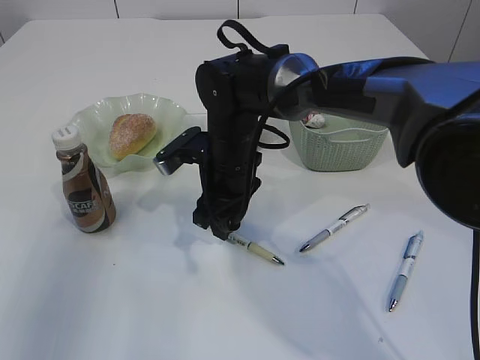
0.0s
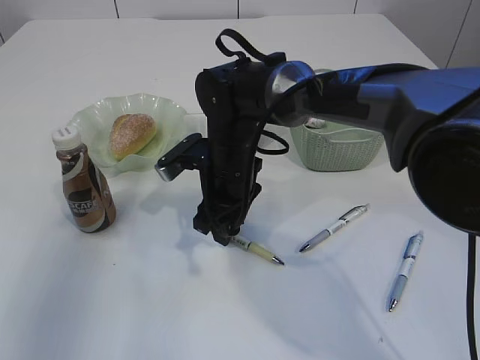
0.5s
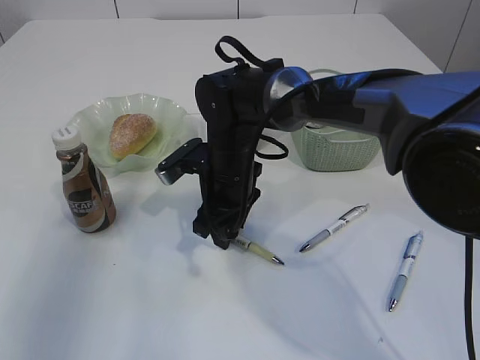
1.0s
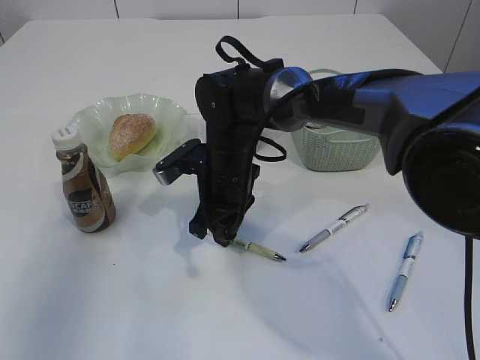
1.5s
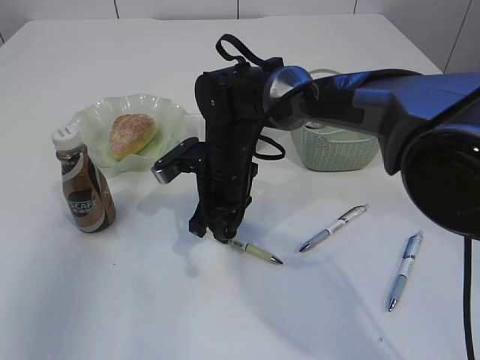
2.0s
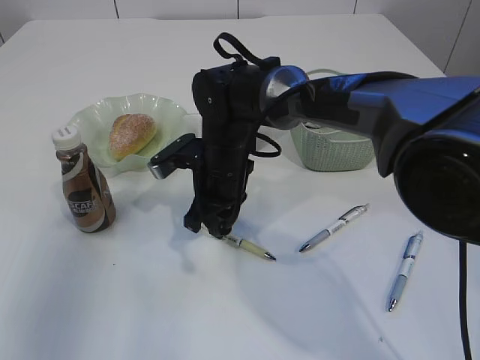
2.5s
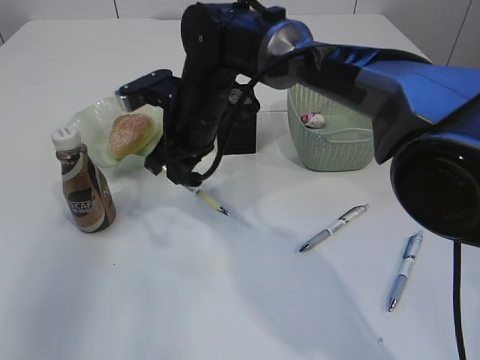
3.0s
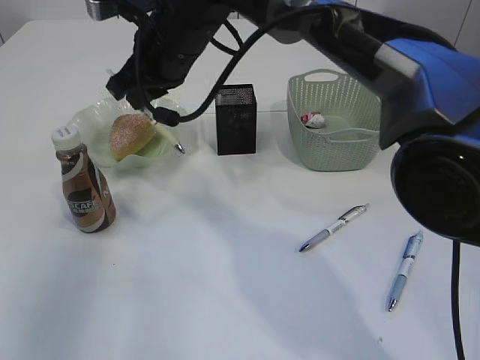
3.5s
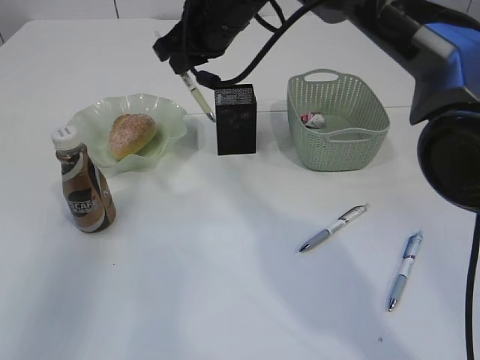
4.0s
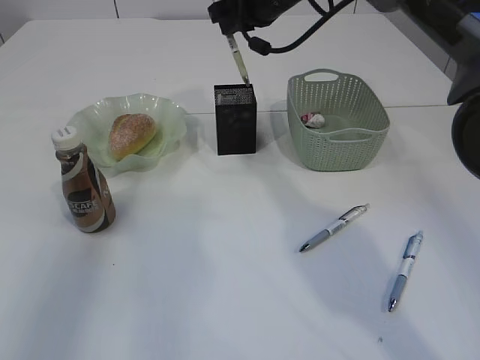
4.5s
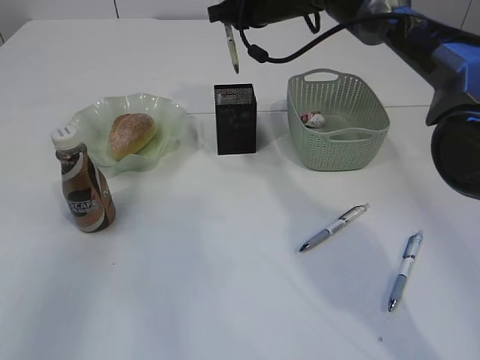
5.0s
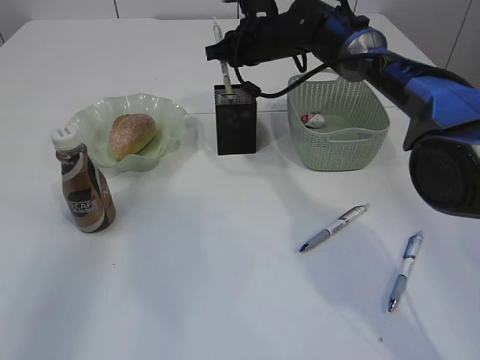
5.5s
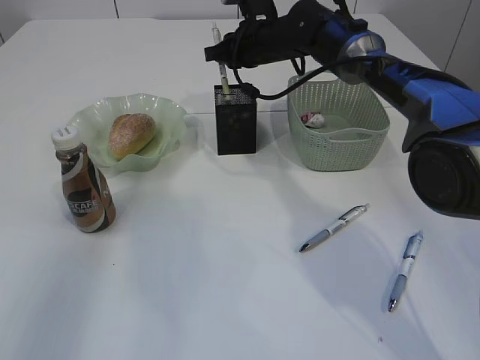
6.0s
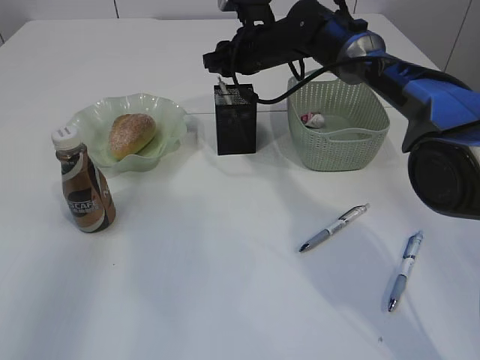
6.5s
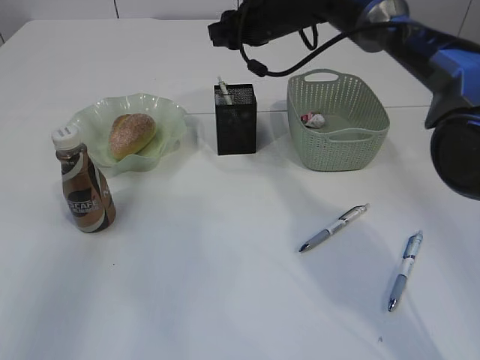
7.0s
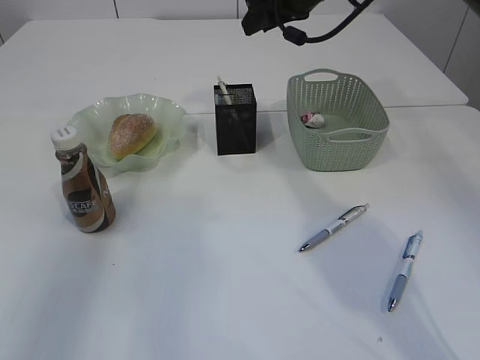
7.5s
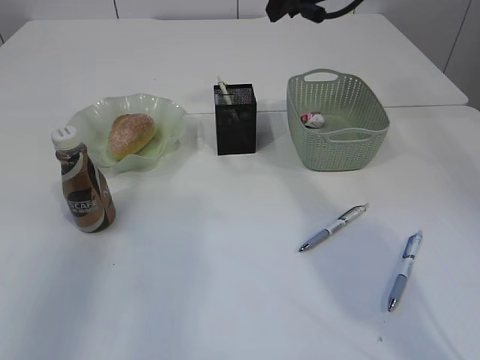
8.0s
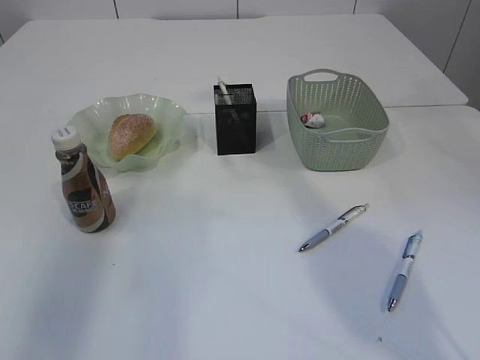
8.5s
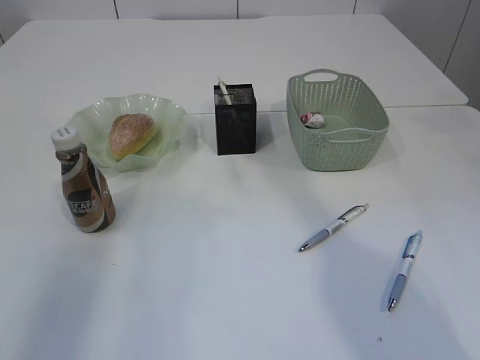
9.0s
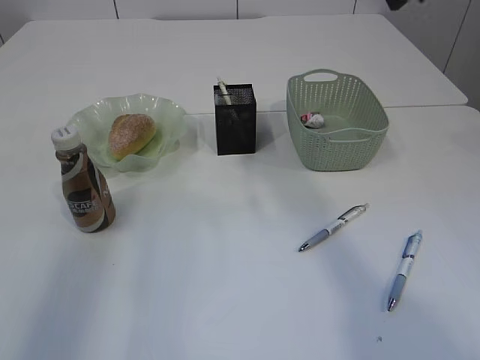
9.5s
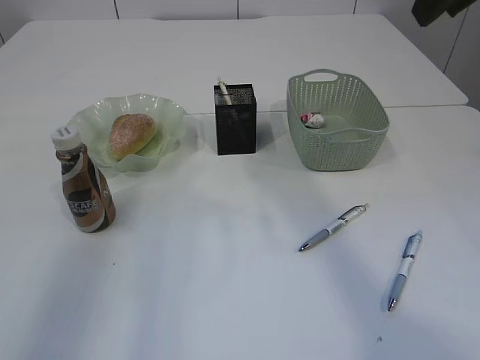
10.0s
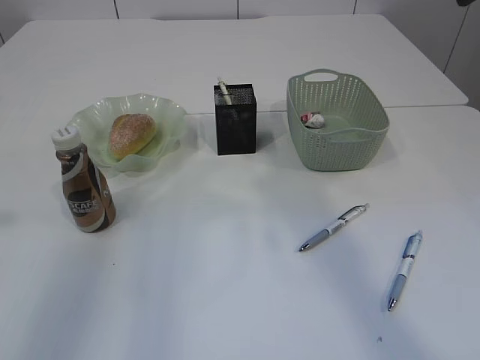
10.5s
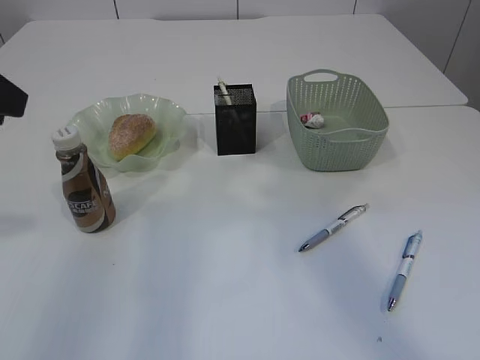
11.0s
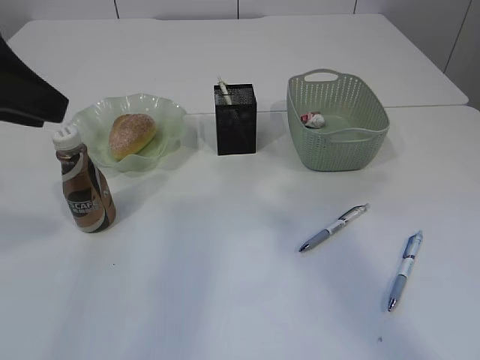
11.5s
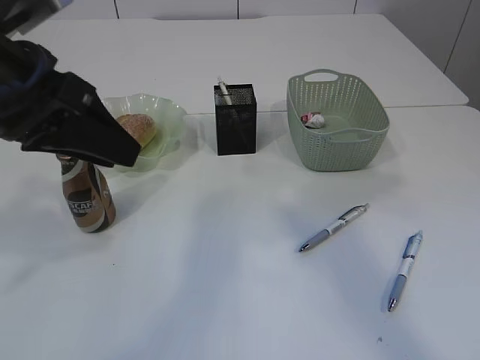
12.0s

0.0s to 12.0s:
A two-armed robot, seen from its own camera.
Step, 0.0s to 3.0s: Pick up the pen with right arm.
Step, 3.5s to 6.5s: Place the pen into the pen holder.
0.0s to 2.0s: The right gripper closes its fingers.
2.0s to 4.0s: The right gripper heads upward and forward, covering approximately 20 cm.
4.0s to 6.0s: The right gripper moves forward, downward and to the right, roughly 15 cm.
6.0s to 8.0s: The right gripper shifts approximately 15 cm upward, backward and to the right, and opens up.
8.0s to 10.0s: The right gripper travels backward and to the right by some 20 cm.
10.0s to 12.0s: The right gripper is displaced backward and to the right by about 10 cm. The left gripper shifts roughly 10 cm to the right.

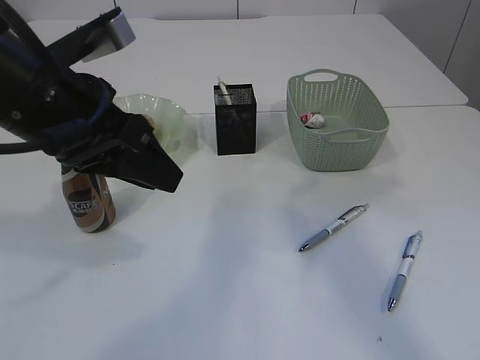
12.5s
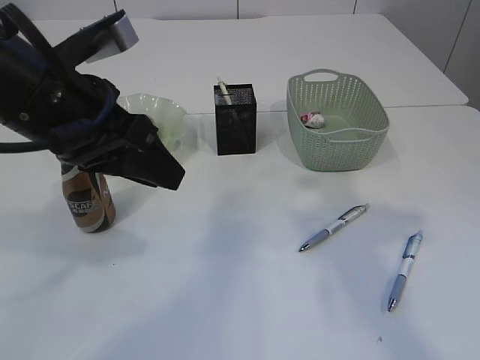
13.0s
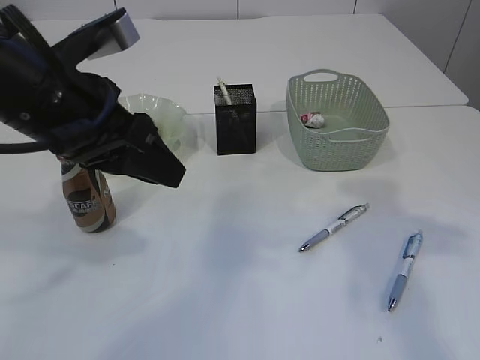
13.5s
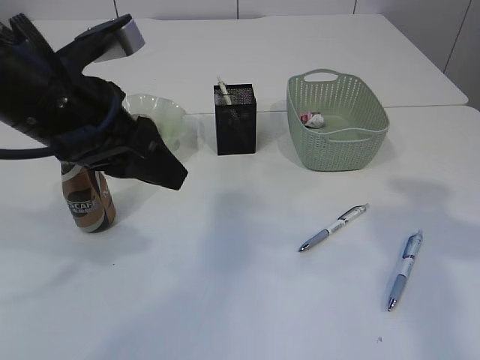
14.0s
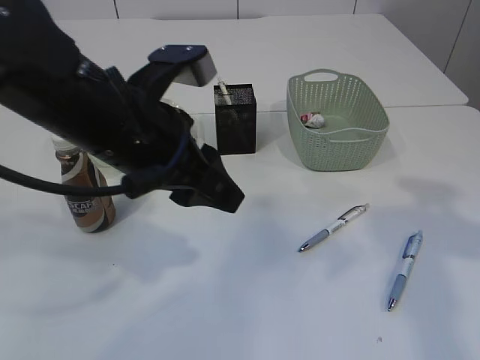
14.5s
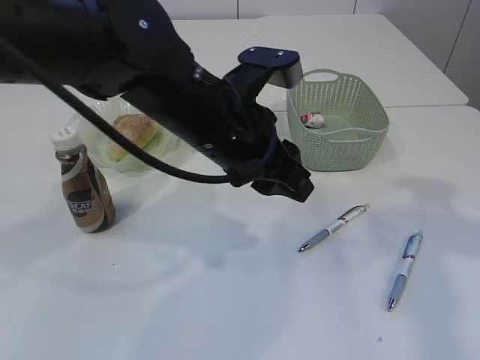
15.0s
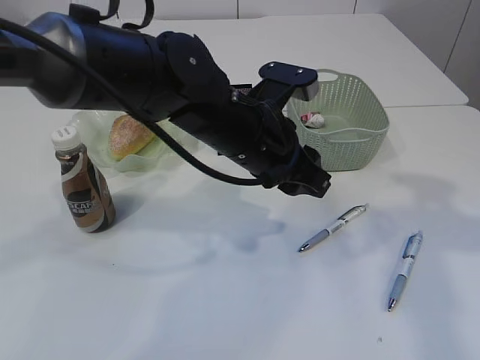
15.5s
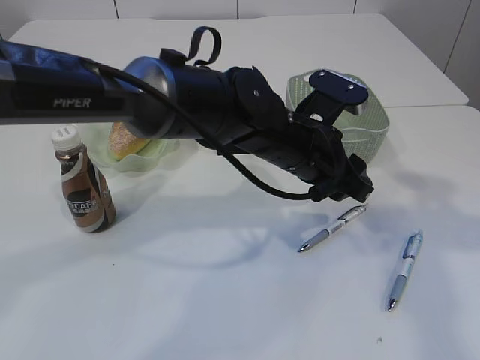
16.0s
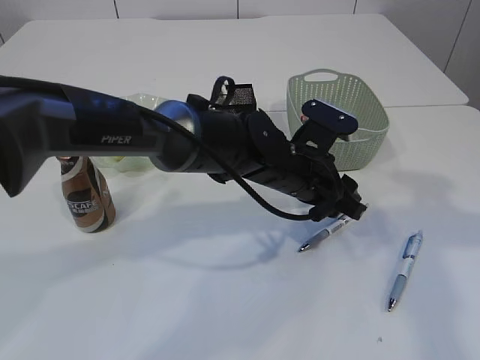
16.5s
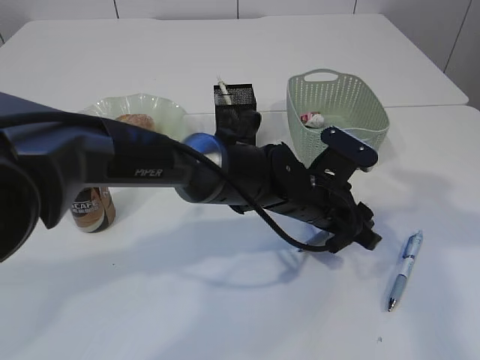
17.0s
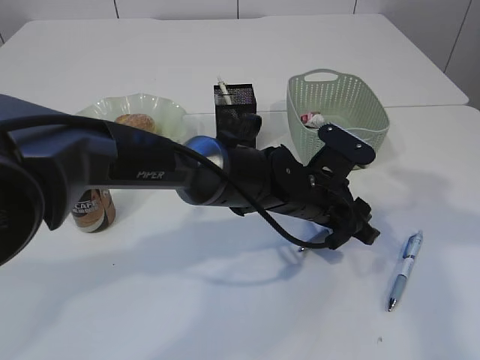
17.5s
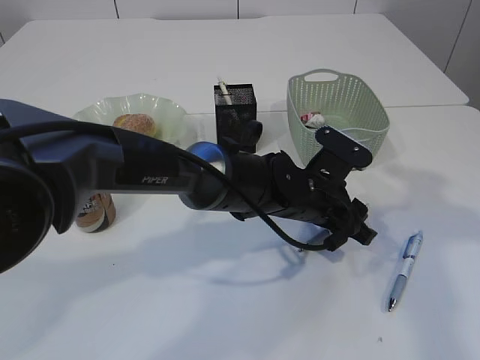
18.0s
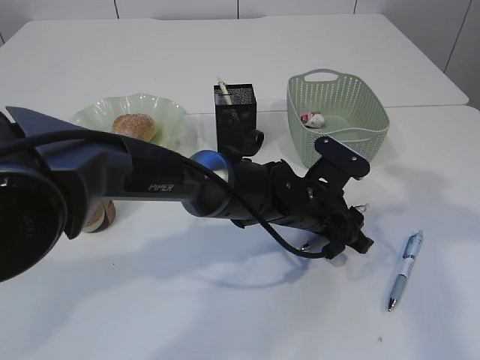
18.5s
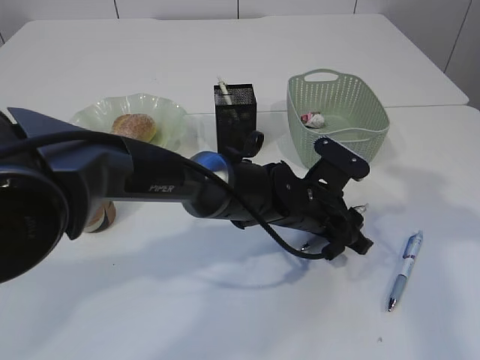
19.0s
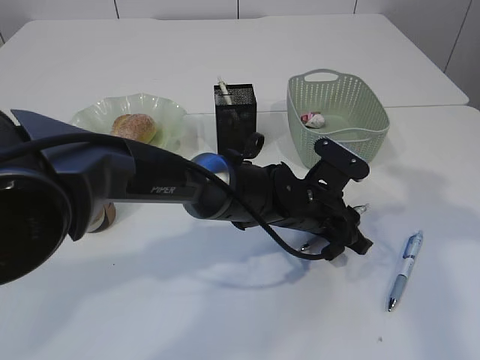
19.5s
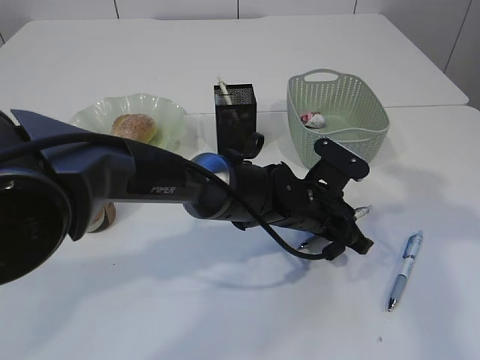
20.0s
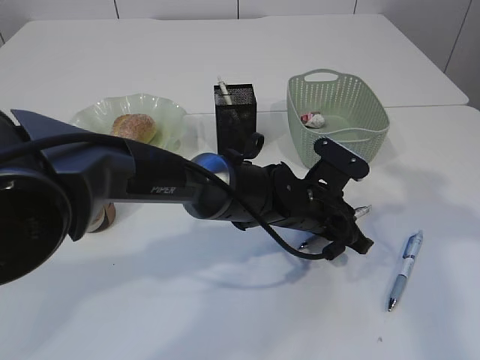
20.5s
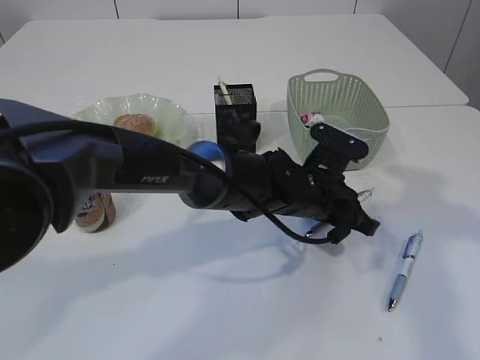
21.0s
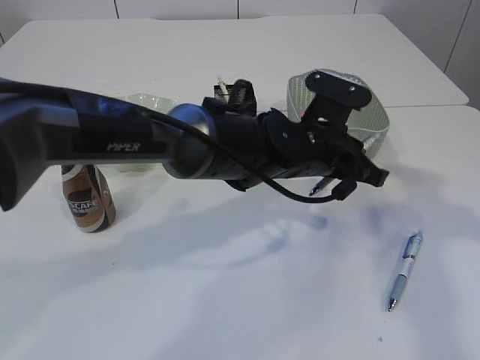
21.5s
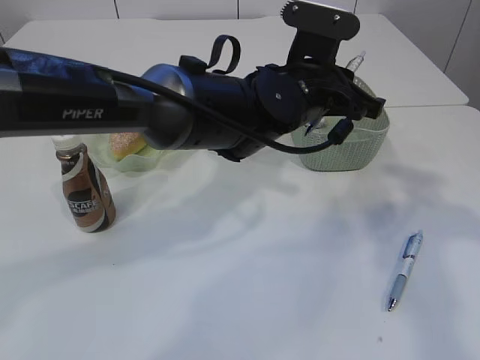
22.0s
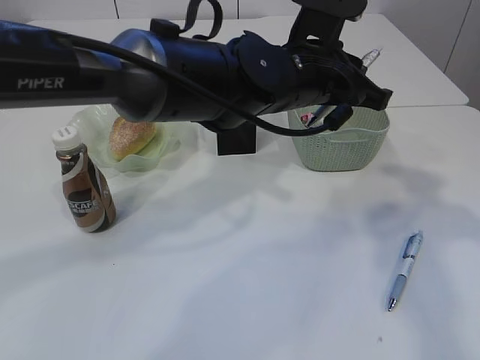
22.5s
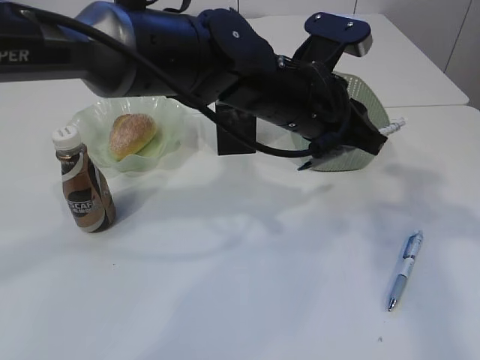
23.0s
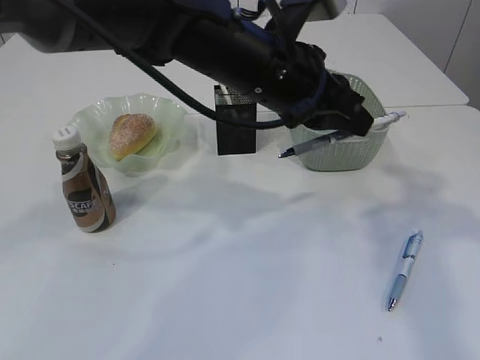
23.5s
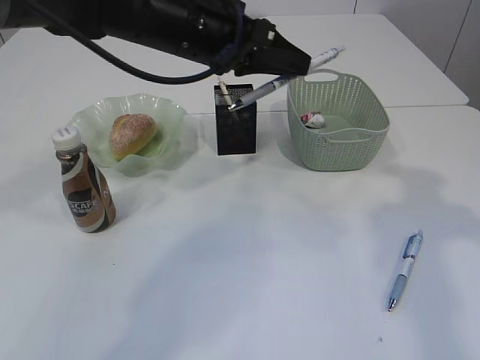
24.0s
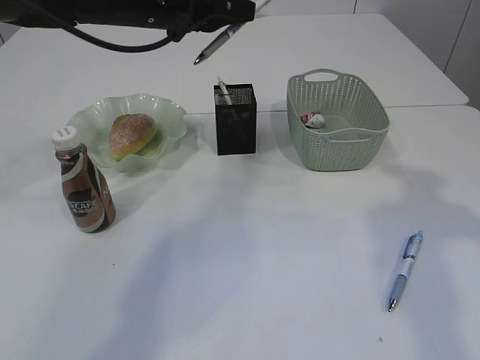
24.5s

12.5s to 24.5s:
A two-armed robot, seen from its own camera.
Step, 12.5s to 21.5s: Pick up the pen with left arm.
12.5s to 14.5s: The left gripper moves to the right, approximately 5 cm, while the right gripper travels downward and to the right by approximately 15 cm.
14.5s to 16.5s: The left gripper shifts some 20 cm to the right, downward and forward.
16.5s to 18.5s: The left gripper travels downward by about 5 cm.
18.5s to 20.5s: The left gripper closes up.
20.5s to 22.5s: The left gripper is displaced upward by approximately 15 cm.
22.5s to 24.5s: The left gripper heads to the left and forward, covering some 20 cm.

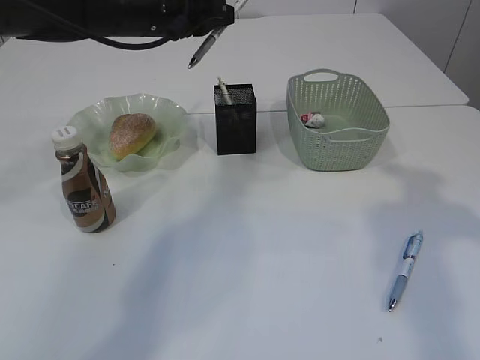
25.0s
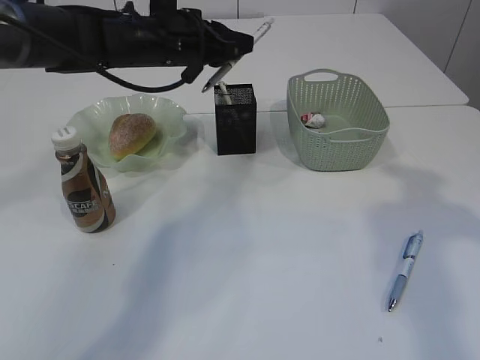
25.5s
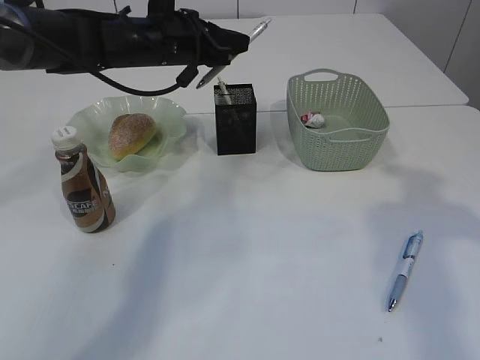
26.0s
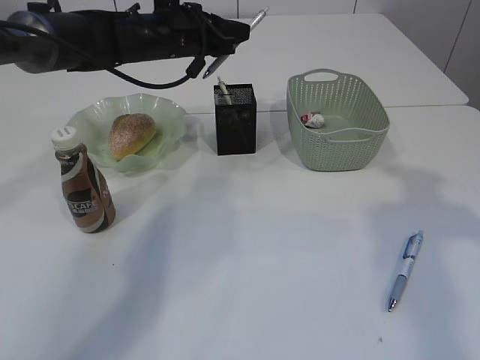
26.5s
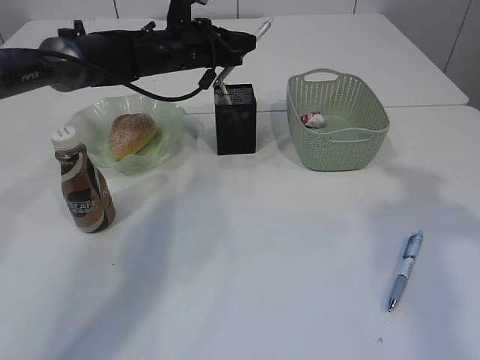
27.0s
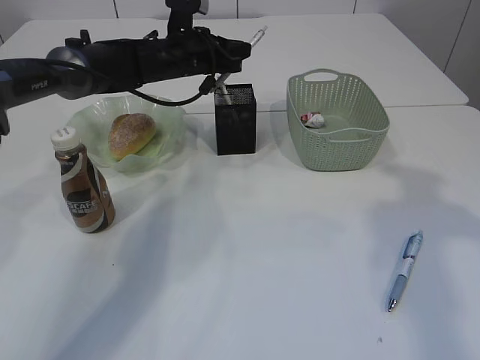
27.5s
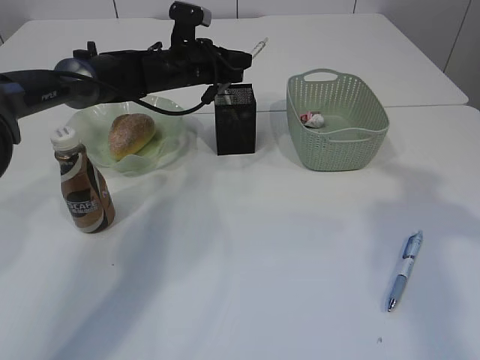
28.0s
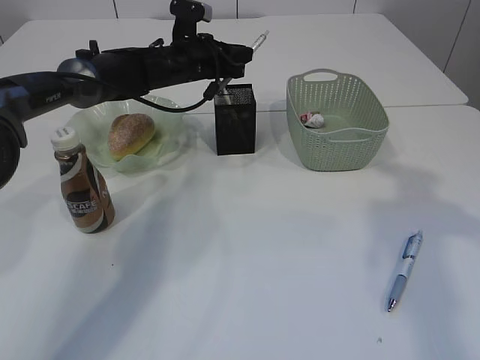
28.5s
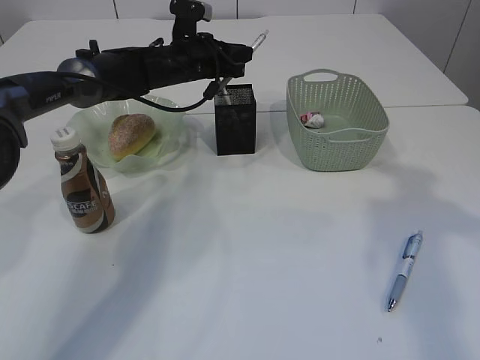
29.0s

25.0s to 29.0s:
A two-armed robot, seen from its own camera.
25.0s to 27.0s: The left gripper goes roughly 10 cm downward and forward.
27.0s to 29.0s: The grippers stay close to where they were, moving slightly.
